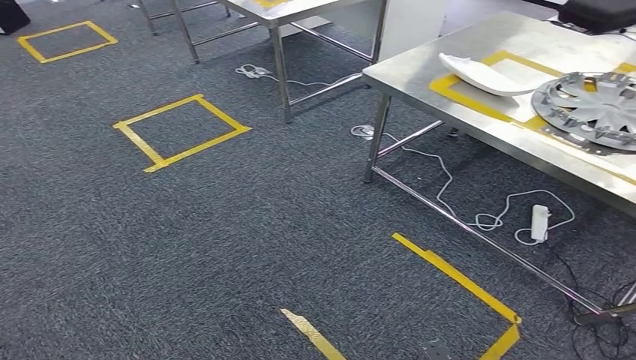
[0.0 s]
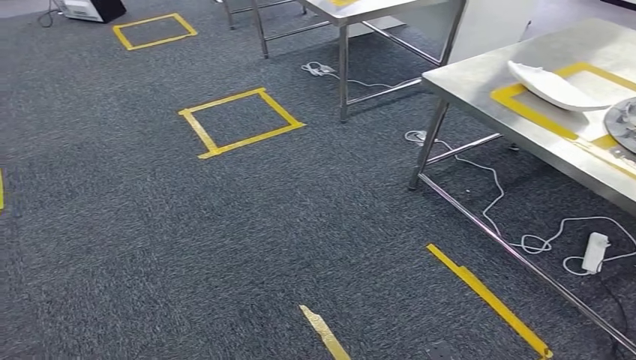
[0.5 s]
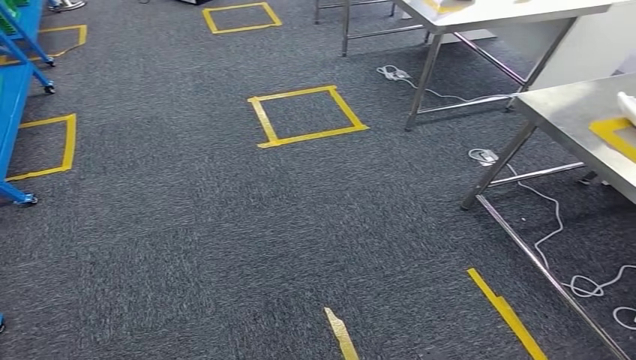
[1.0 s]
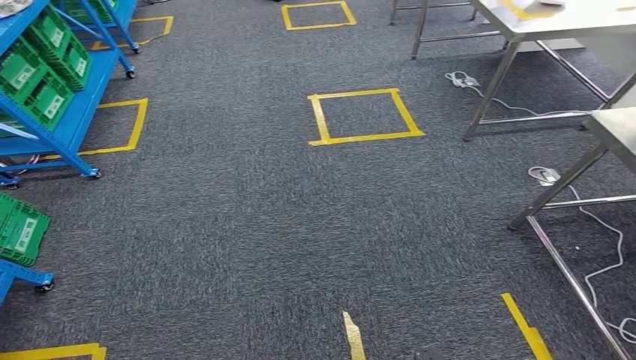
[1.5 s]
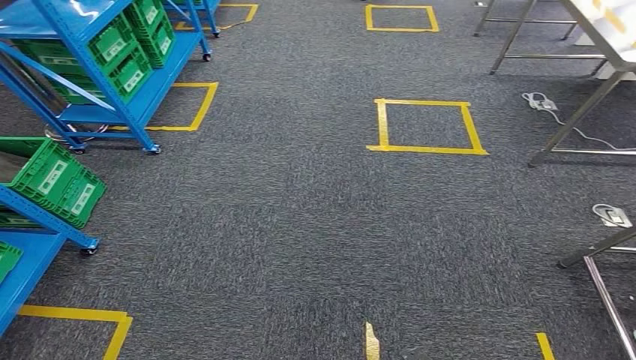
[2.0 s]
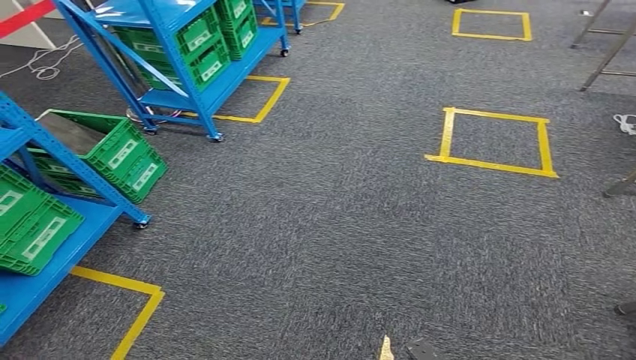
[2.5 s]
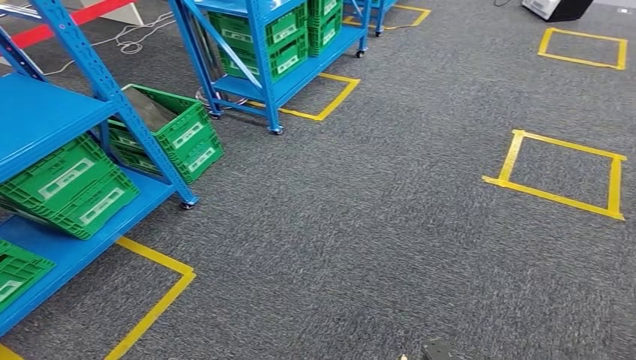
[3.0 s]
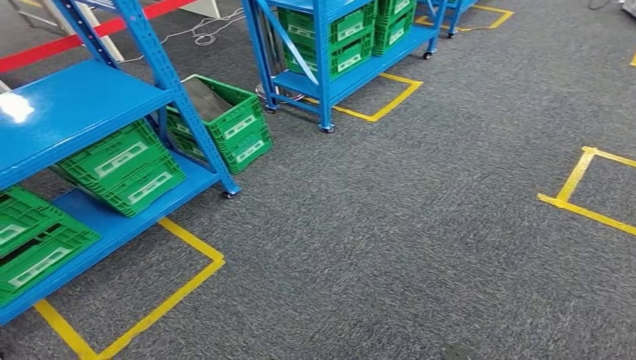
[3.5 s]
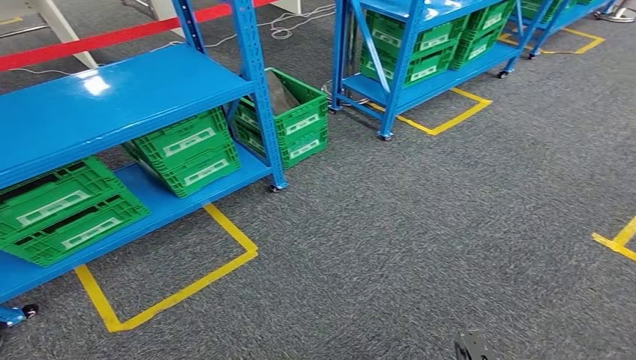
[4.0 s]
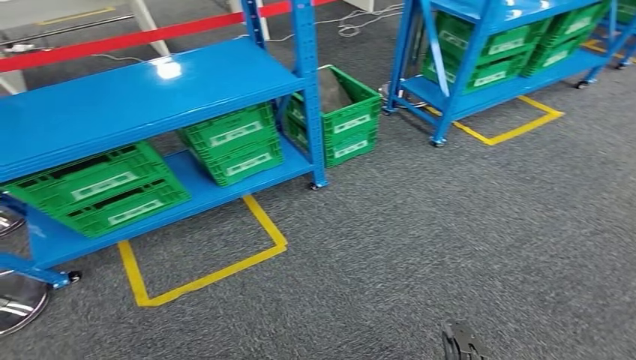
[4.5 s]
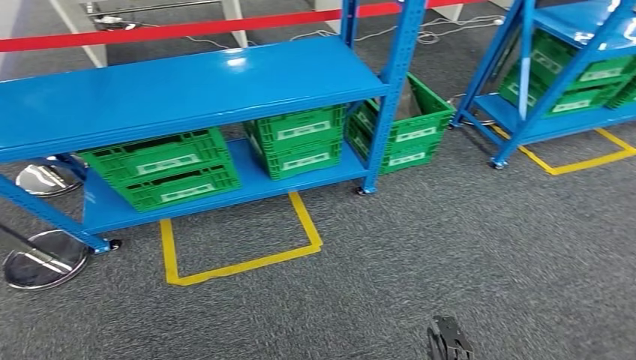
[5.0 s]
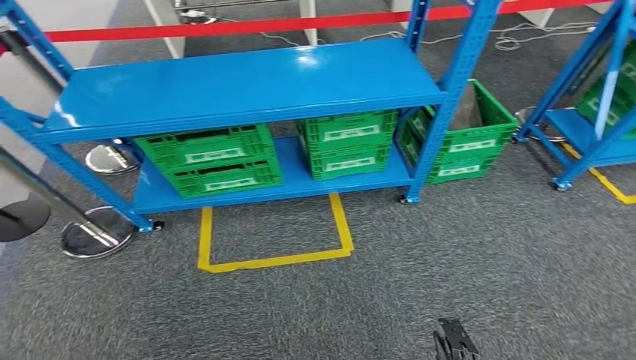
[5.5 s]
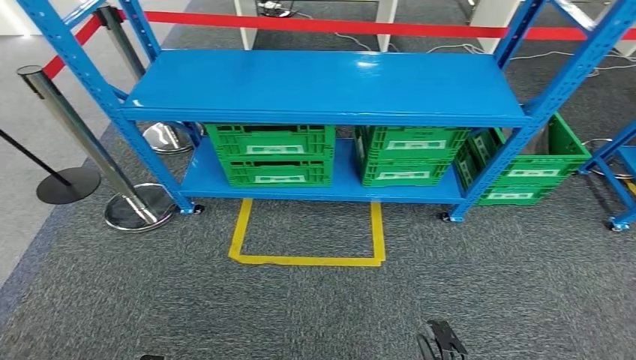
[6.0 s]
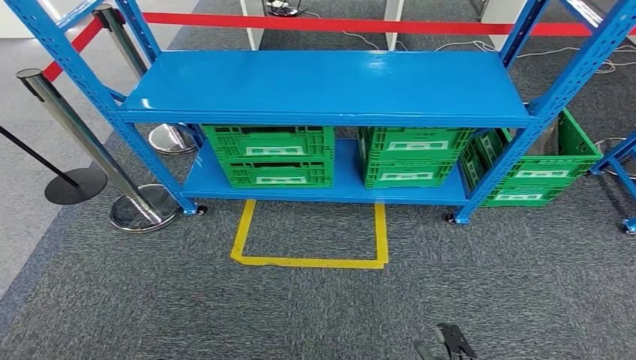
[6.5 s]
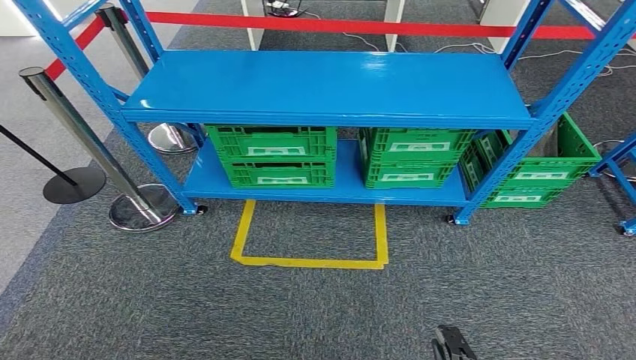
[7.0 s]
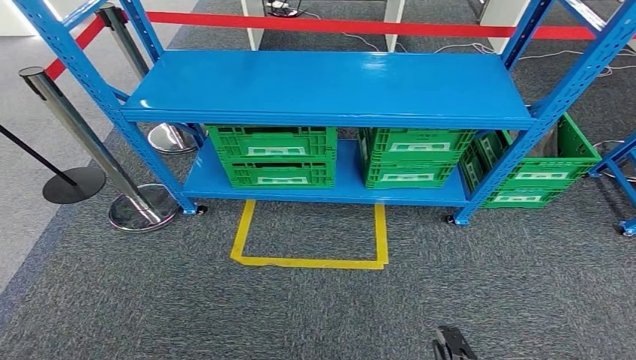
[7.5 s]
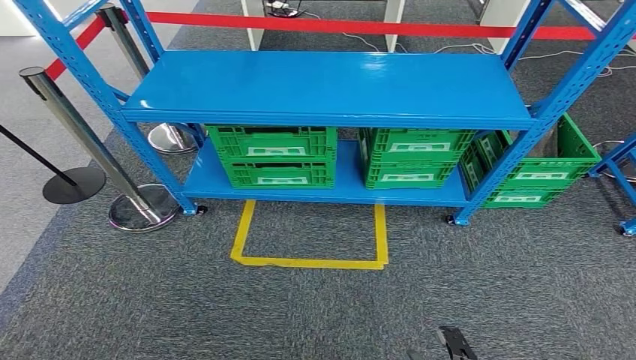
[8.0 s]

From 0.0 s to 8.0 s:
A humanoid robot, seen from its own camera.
Step, from 0.0 s to 8.0 s: Return to the initial position at the workbench.
From 6.0 s to 8.0 s: The hands stay close to where they were, moving slightly.
